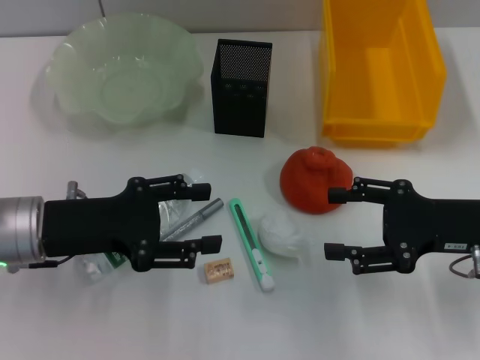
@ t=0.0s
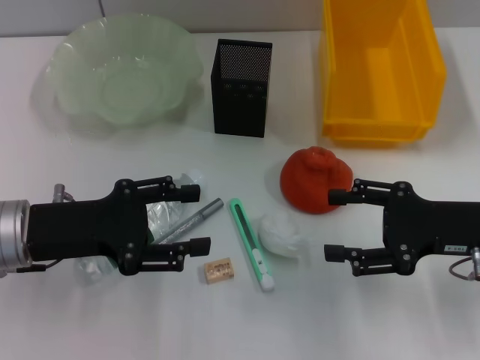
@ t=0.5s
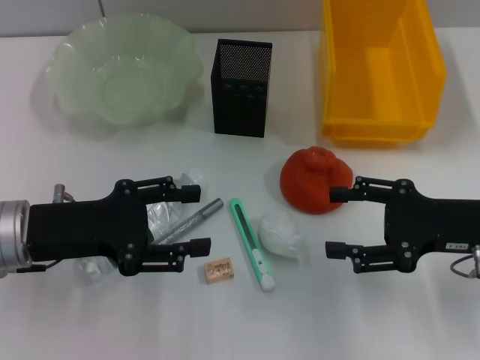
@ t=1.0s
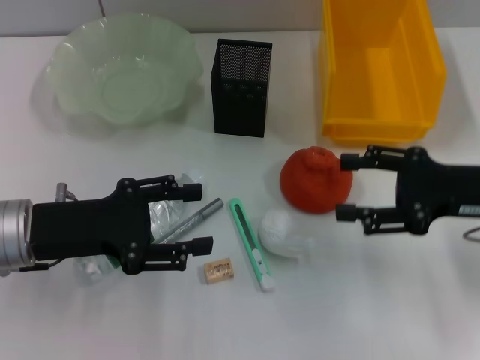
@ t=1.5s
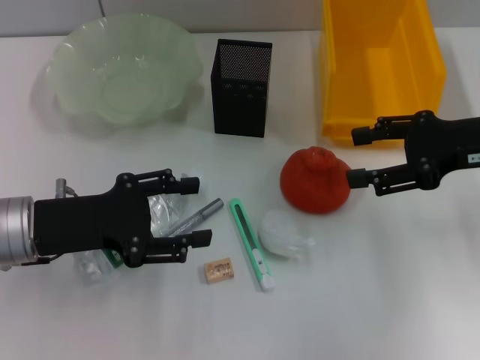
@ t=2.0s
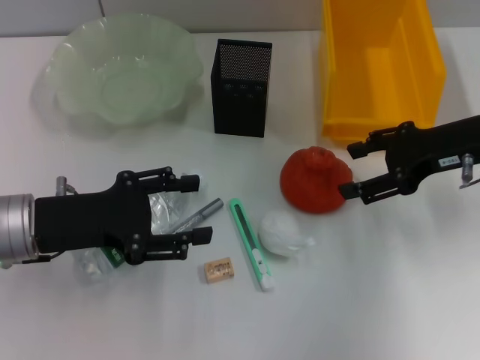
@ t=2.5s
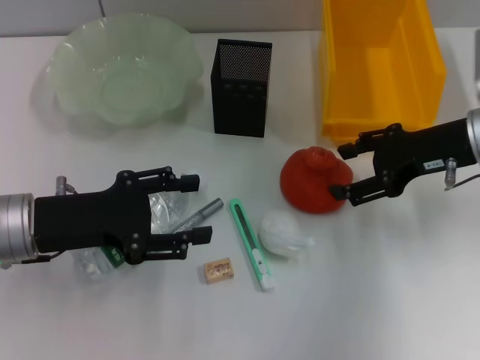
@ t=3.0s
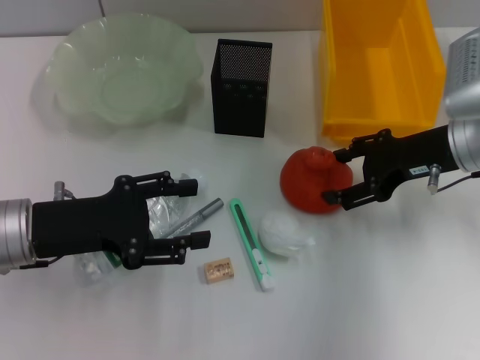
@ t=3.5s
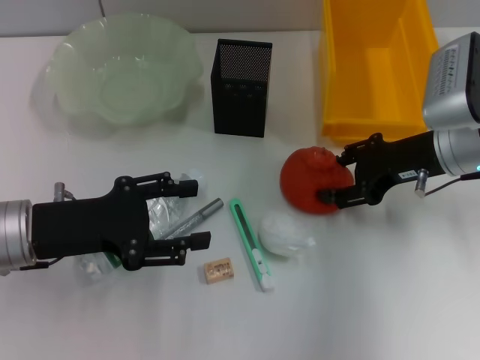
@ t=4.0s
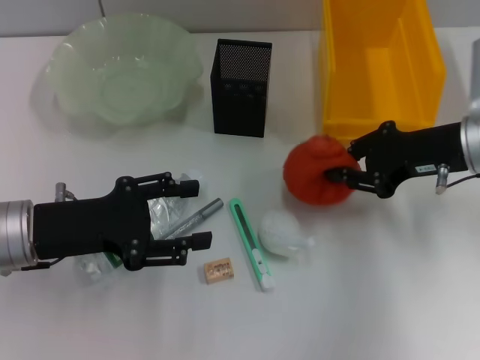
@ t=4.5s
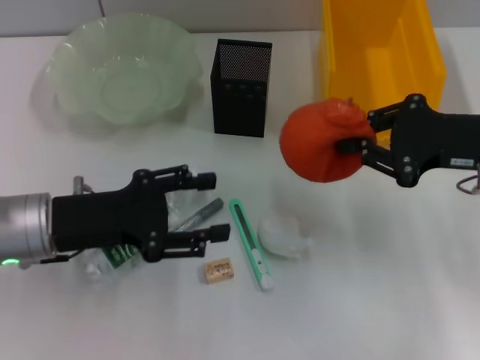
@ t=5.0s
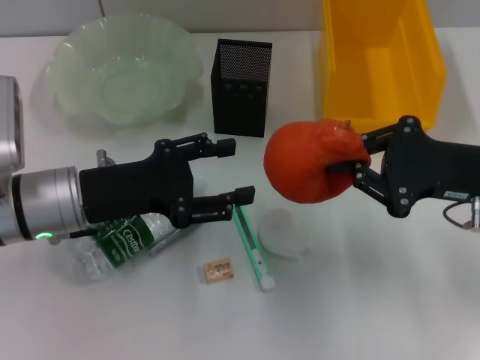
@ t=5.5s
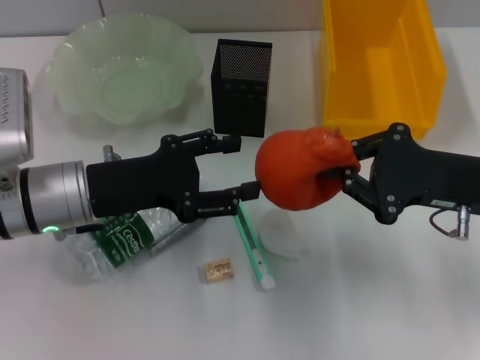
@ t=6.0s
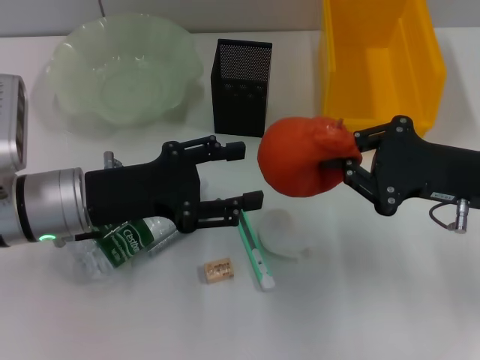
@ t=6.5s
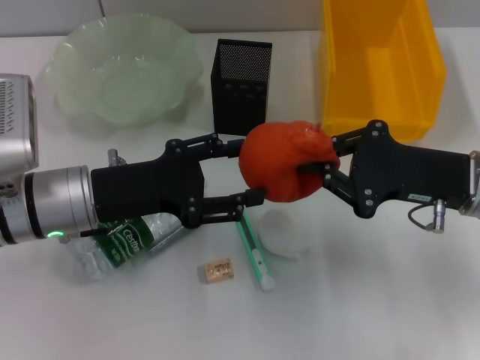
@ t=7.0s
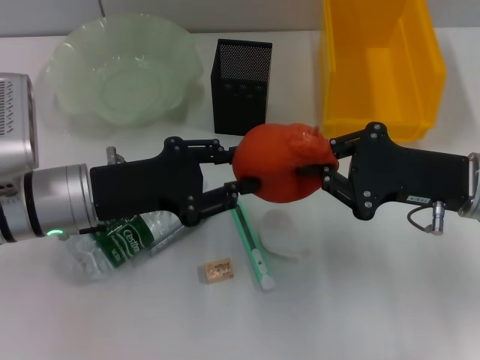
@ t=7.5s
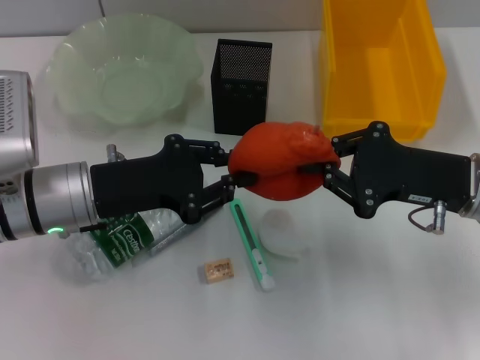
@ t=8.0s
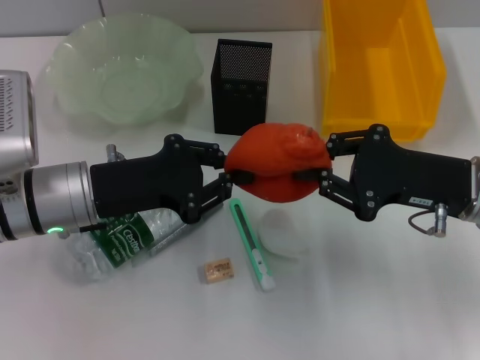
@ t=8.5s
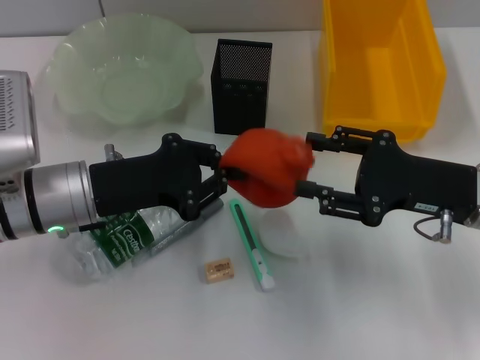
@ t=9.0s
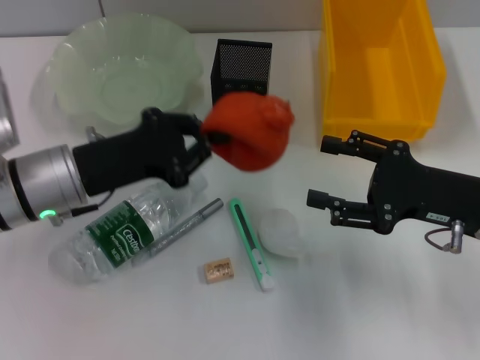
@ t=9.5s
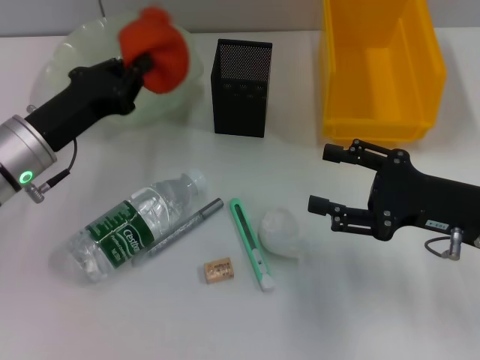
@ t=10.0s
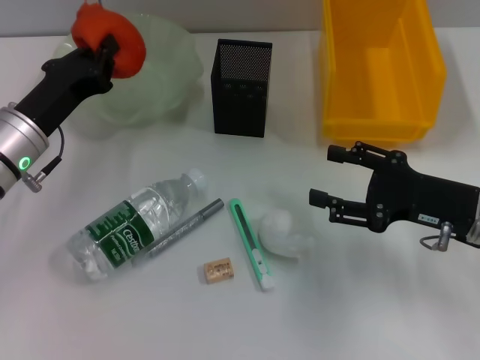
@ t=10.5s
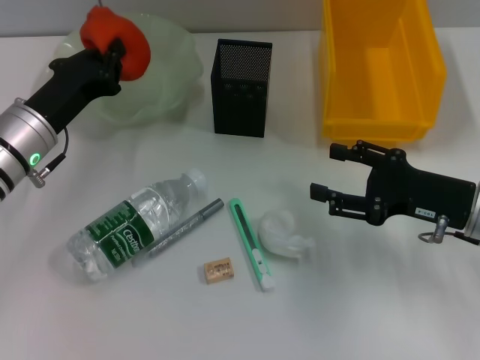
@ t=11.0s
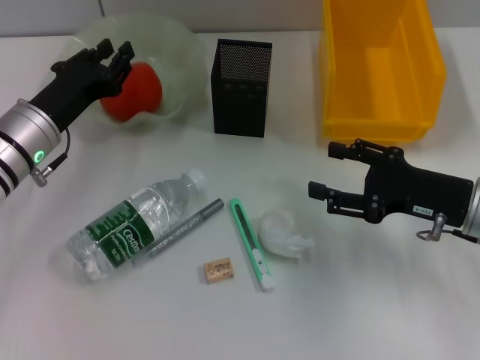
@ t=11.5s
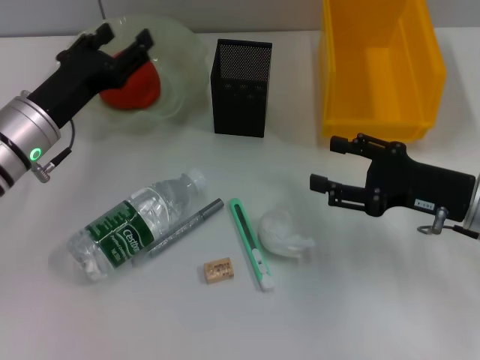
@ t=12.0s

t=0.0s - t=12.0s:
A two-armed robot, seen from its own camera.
Step, t=0.0s - t=4.0s: Grab the orange with the right hand.
Step, t=4.5s - t=9.0s: Pass the orange from the right hand to the left hand.
Step, t=9.5s - t=11.5s: Place the orange into the fruit bowl with the left hand.
t=0.0s - t=2.0s: The right gripper travels upward and forward by roughly 10 cm.
t=2.0s - t=4.0s: The right gripper heads to the left, covering roughly 5 cm.
t=4.0s - t=6.0s: The left gripper shifts by some 5 cm. The right gripper travels backward by some 10 cm, and closes.
t=6.0s - t=8.0s: The left gripper closes.
t=8.0s - t=10.0s: The left gripper shifts by about 5 cm; the right gripper opens its fingers.
t=10.0s - t=12.0s: The left gripper opens.

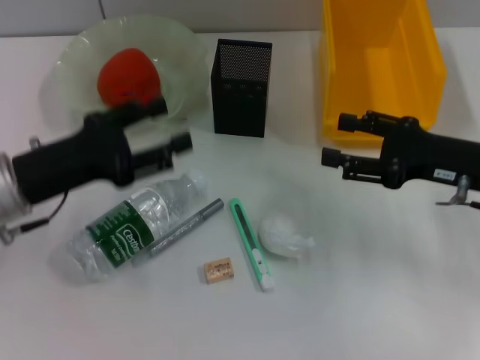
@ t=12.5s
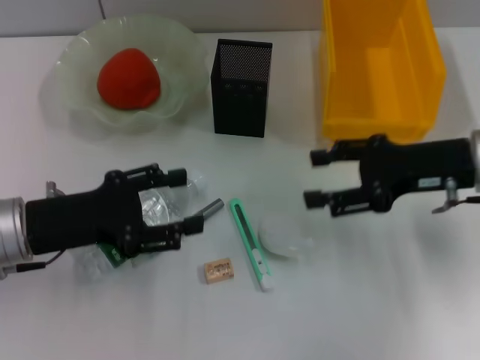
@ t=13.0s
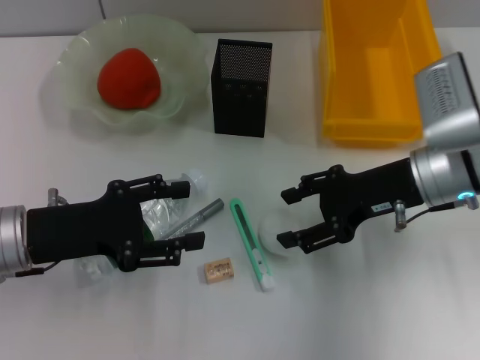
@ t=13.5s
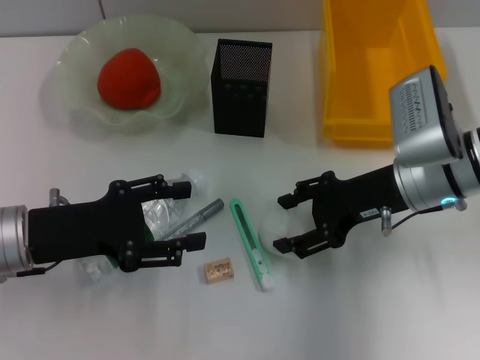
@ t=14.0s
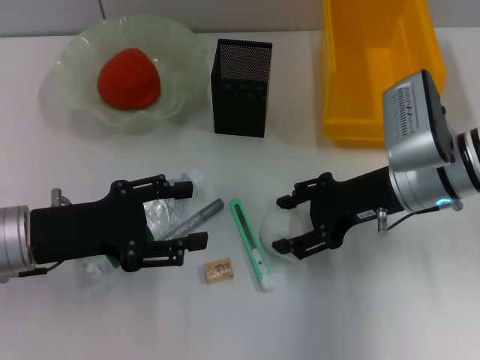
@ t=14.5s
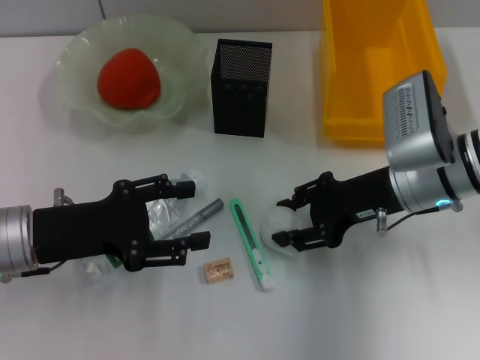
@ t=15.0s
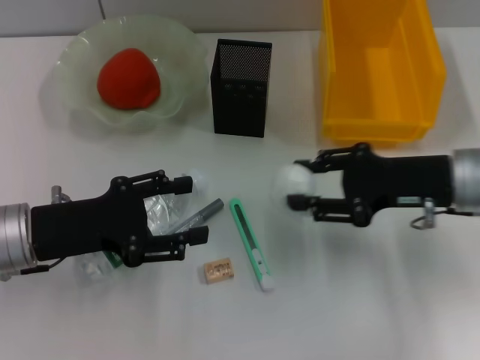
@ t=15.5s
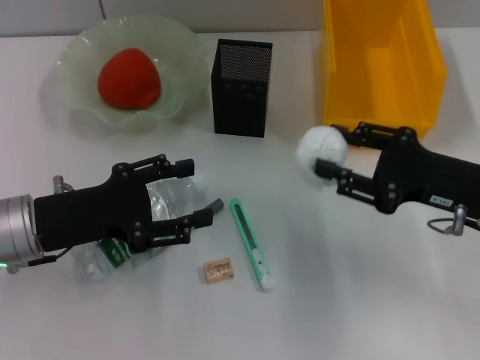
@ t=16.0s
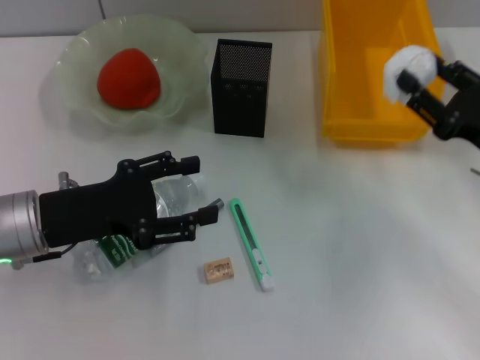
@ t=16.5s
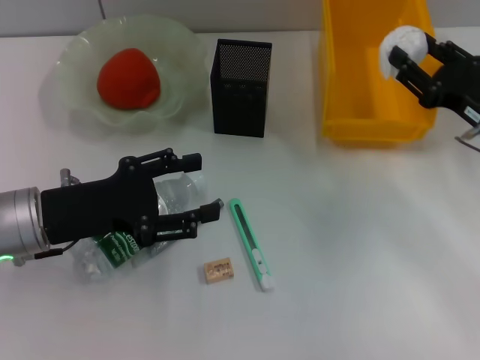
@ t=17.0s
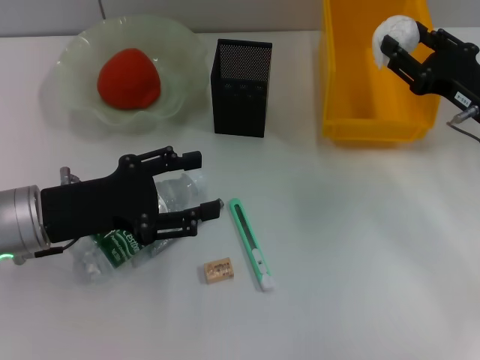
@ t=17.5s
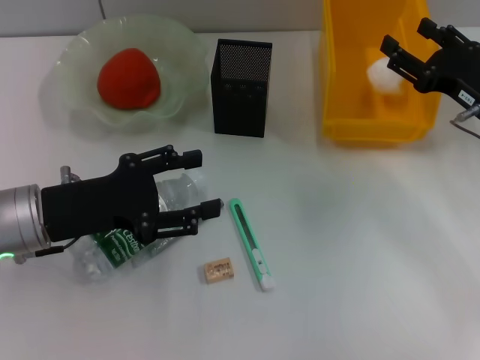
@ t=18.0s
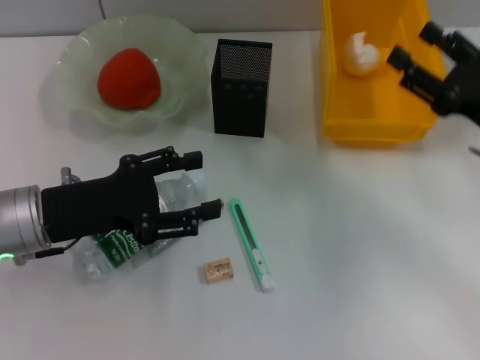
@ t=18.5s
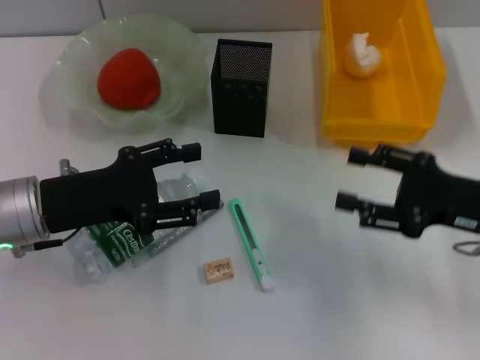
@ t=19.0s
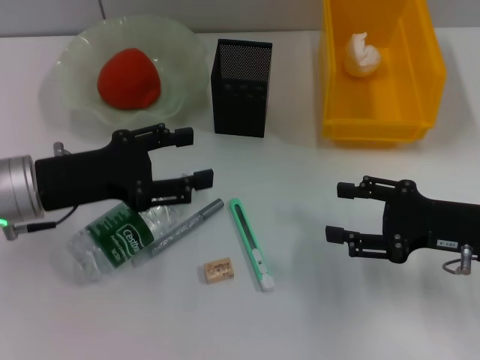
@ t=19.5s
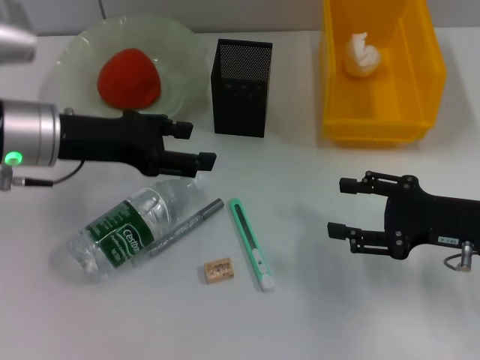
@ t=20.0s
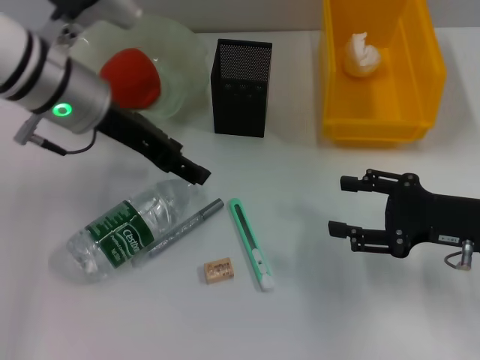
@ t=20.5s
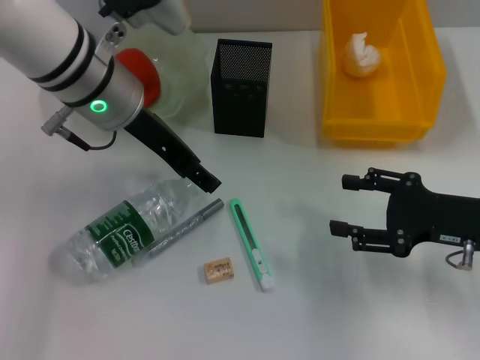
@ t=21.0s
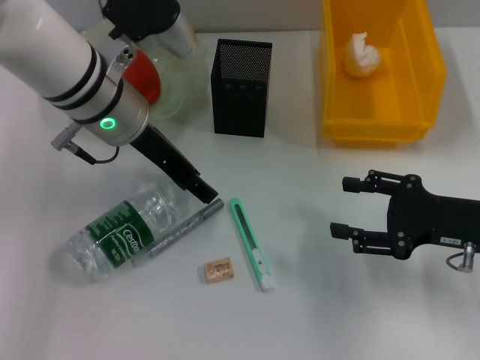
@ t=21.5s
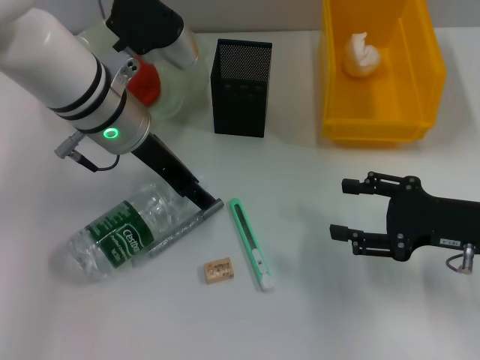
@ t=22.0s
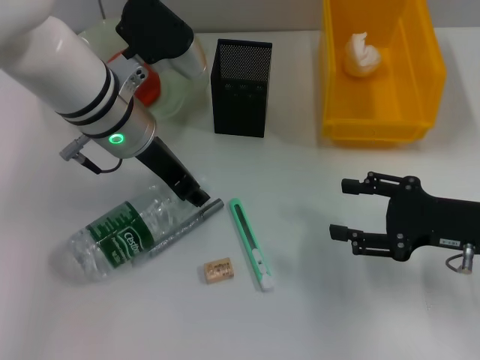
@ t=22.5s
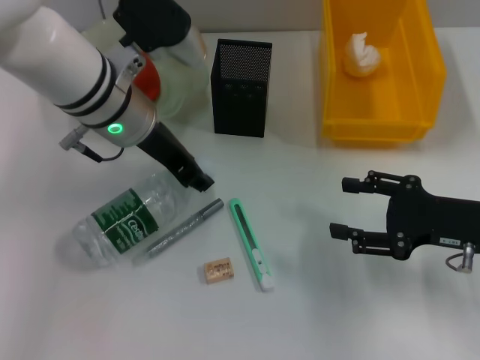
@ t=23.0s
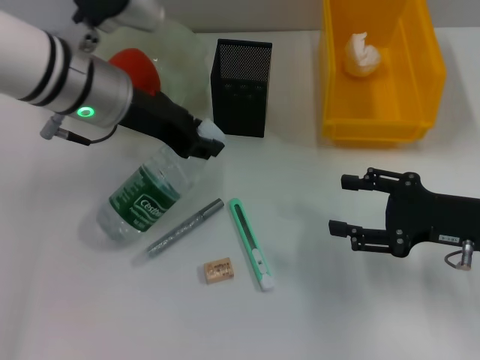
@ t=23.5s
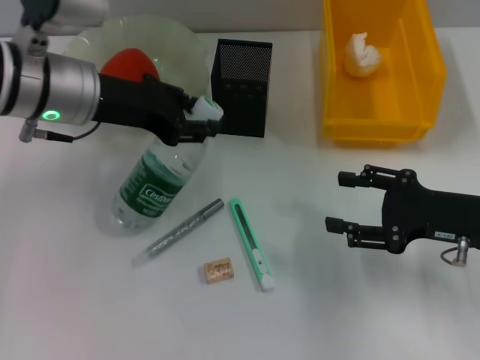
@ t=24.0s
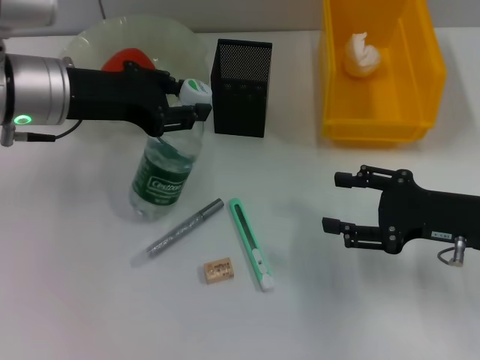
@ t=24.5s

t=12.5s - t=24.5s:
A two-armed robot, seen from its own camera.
Step, t=12.5s - t=14.5s: Grab the paper ball with the right hand.
Step, t=15.5s - t=18.0s: Place the paper ball into the trash can with the right hand.
Step, t=18.5s - t=22.5s: Grab the water bottle with the left hand.
t=12.5s - t=14.5s: The right gripper moves to the left, about 10 cm.
t=14.5s - t=16.5s: The right gripper shifts about 10 cm to the right and backward.
t=16.5s - t=18.5s: There are only small adjustments of the grippers.
t=18.5s - t=20.5s: The left gripper goes approximately 15 cm forward, upward and to the right.
t=20.5s - t=22.5s: The left gripper shifts about 5 cm to the right.
t=22.5s - t=24.5s: The left gripper travels to the left by approximately 10 cm.

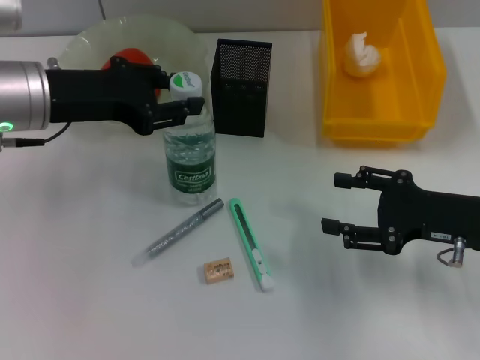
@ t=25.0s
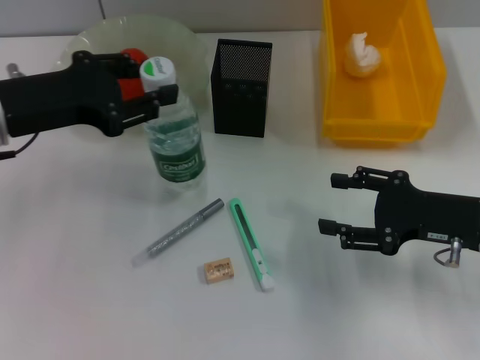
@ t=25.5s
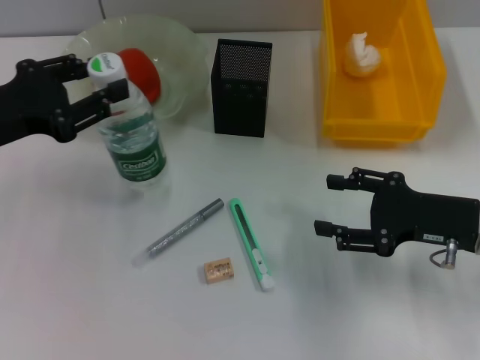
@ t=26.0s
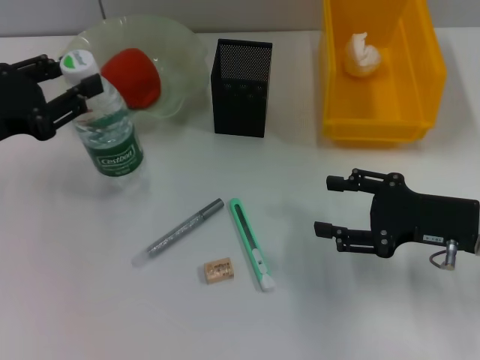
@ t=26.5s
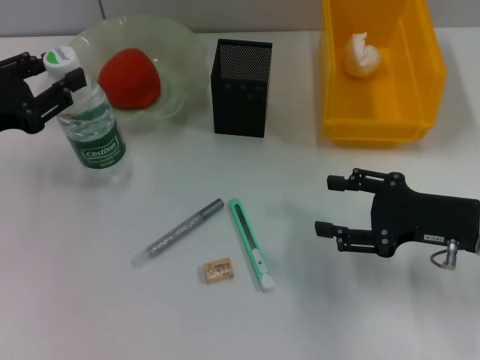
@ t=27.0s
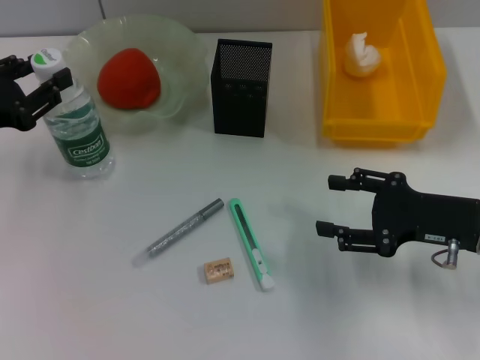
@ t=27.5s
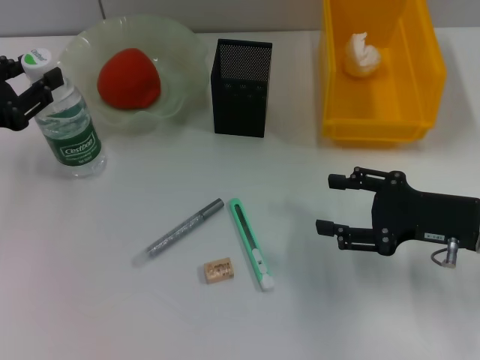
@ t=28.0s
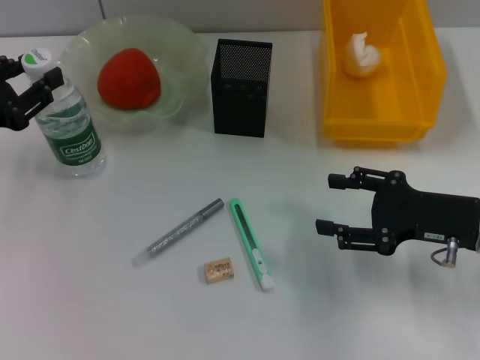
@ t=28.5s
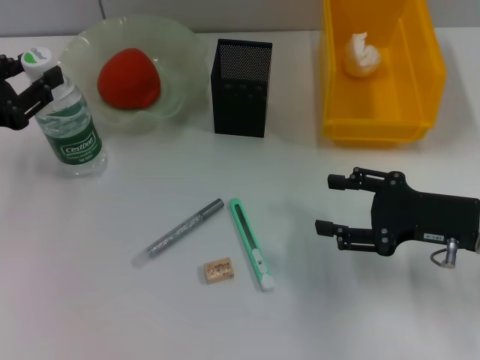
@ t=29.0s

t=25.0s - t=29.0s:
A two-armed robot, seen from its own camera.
t=25.0s - t=27.0s: The left gripper travels to the left and backward by some 10 cm.
t=27.0s - t=29.0s: There are only small adjustments of the grippers.
